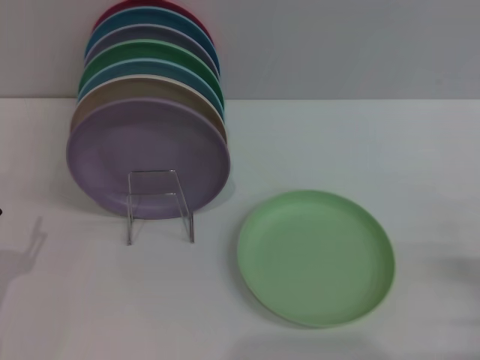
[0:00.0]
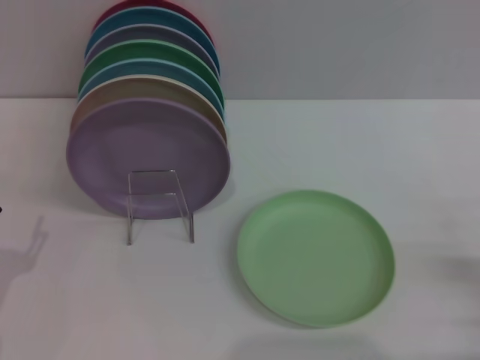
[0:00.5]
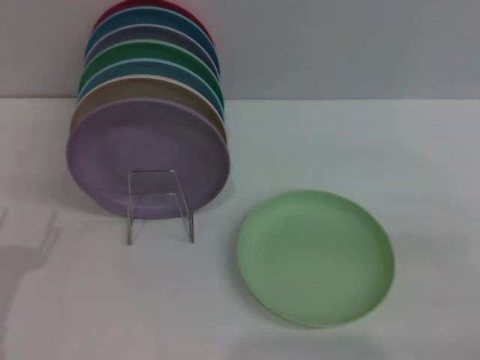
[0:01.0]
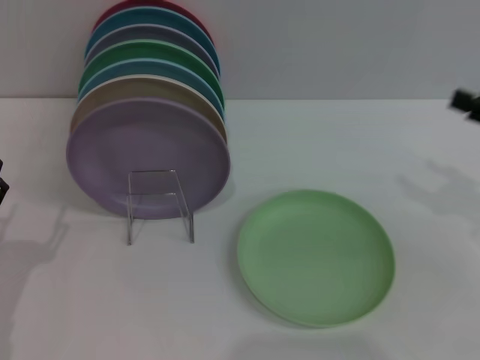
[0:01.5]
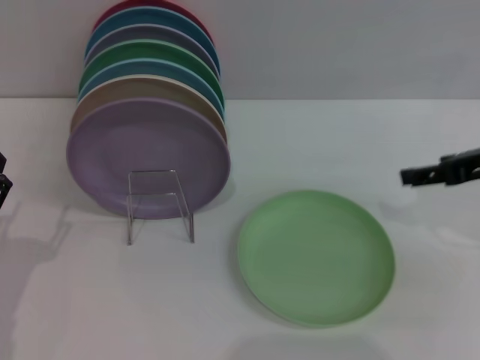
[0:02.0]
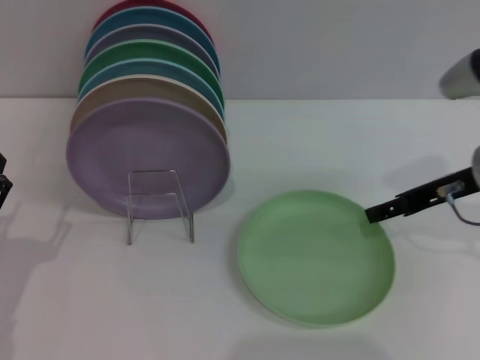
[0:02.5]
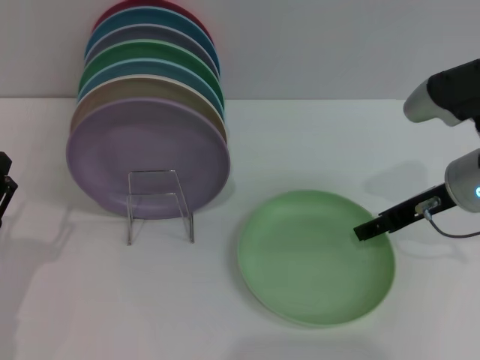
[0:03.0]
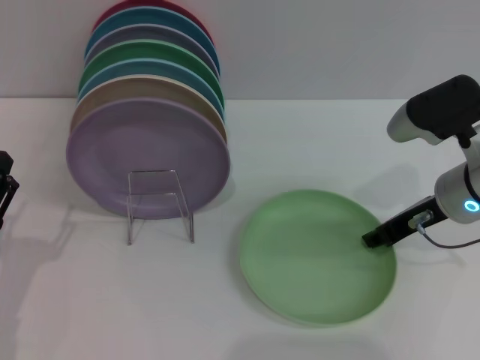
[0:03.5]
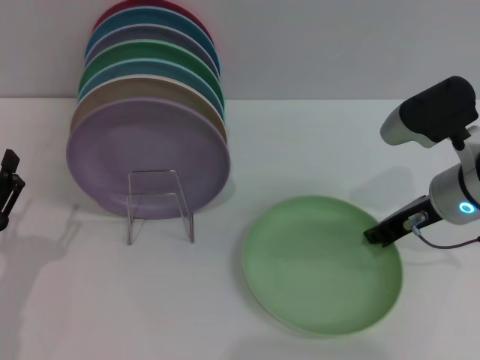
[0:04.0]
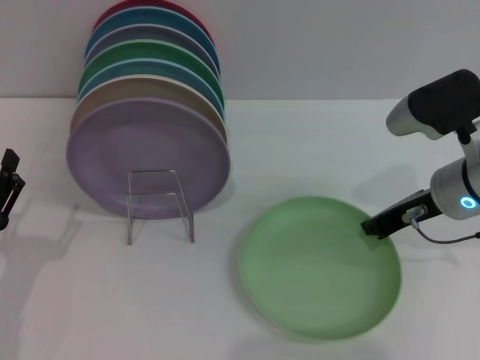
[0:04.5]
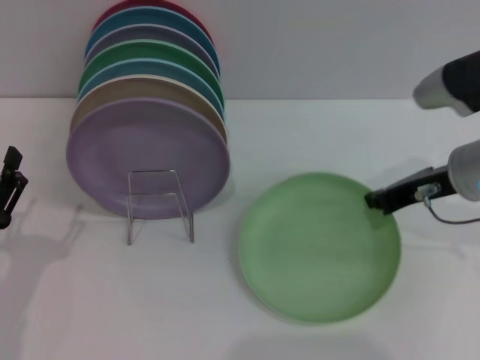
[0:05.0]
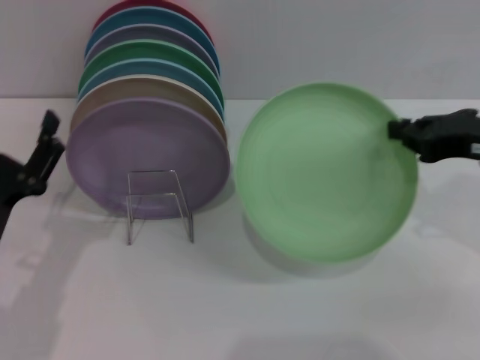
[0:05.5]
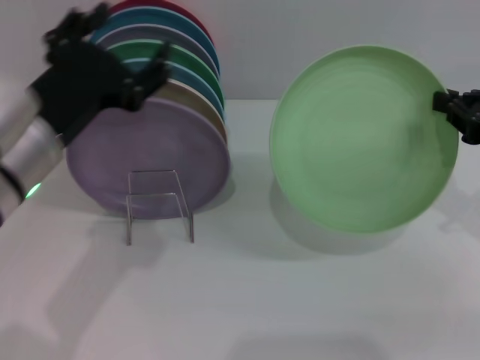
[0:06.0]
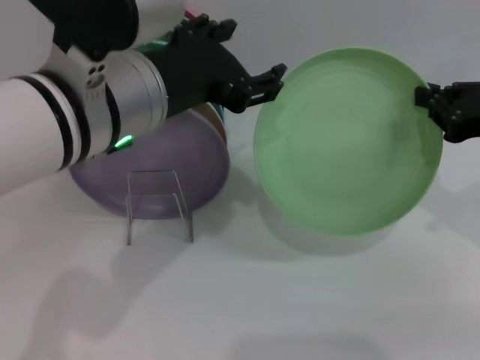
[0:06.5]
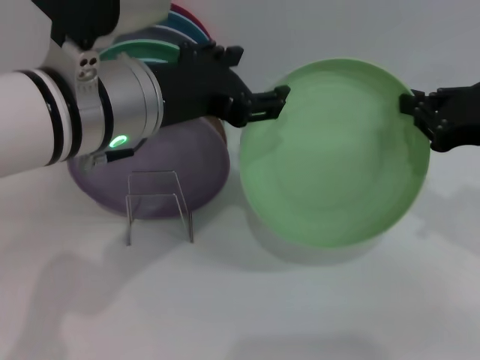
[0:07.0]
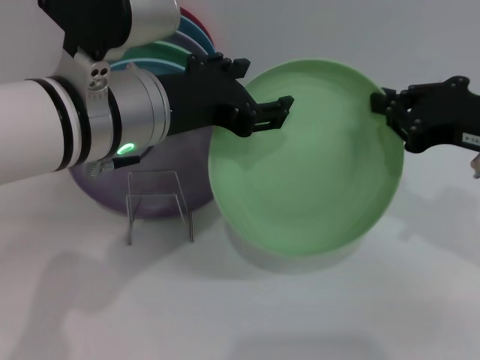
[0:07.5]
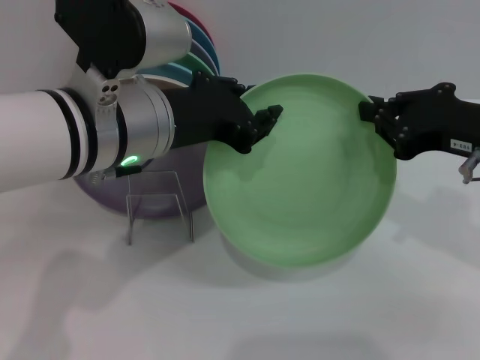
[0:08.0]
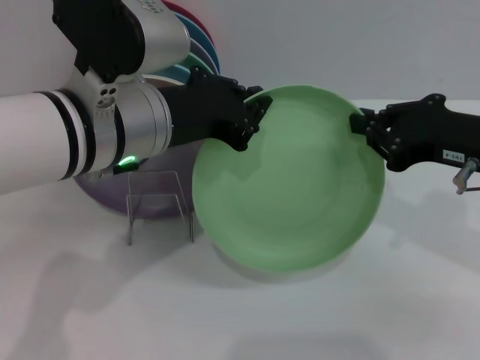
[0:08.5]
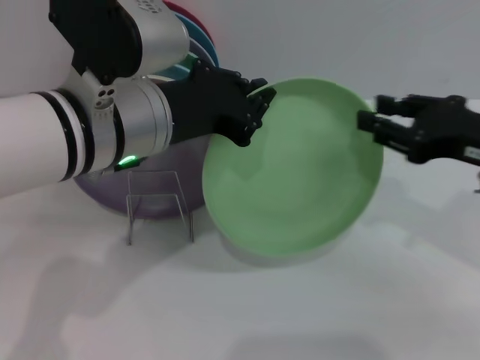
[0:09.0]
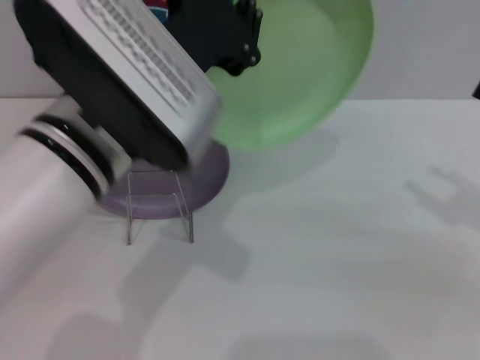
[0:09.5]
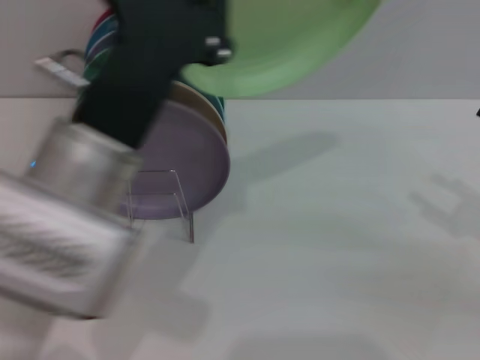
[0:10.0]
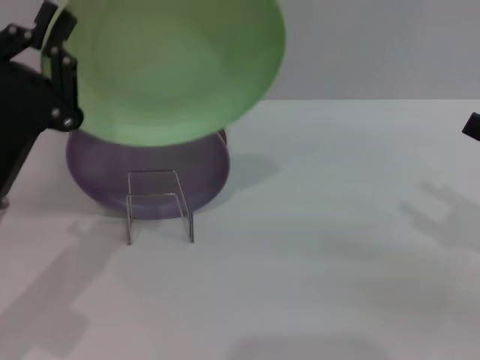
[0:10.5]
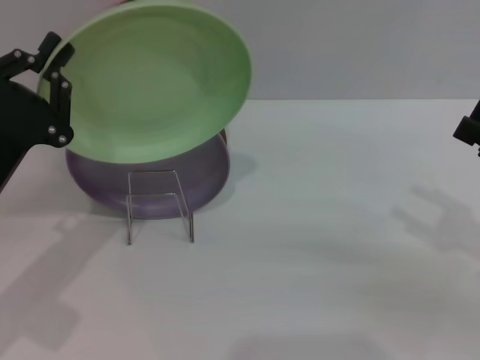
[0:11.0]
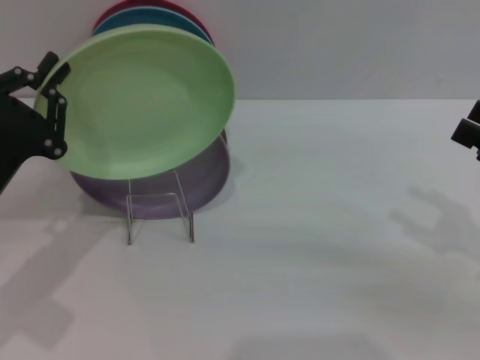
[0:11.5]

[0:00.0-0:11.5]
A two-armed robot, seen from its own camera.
Task of the whole recording: Grip the plate with one hand, pass it to the other, then set it on the shelf.
Step, 0:00.0 to 0:05.0: Pick up the plate with the right gripper.
Step, 0:05.5 to 0:09.5: Pass the plate from the right gripper to the left gripper.
0:00.0 to 0:02.0: The right gripper is displaced upward, forward and to the left by approximately 25 cm.
0:02.0 to 0:04.0: The right gripper shifts some 10 cm to the left and downward, and closes.
0:04.0 to 0:06.0: The right gripper shifts roughly 10 cm to the right, upward and backward, while the left gripper goes about 20 cm upward and to the right.
0:06.0 to 0:07.5: The left gripper shifts roughly 5 cm to the right.
0:07.5 to 0:09.5: The right gripper heads to the right, covering about 10 cm, and opens up. Meanwhile the left gripper closes its fingers.
0:09.5 to 0:11.5: The left gripper moves to the left and downward, some 20 cm.

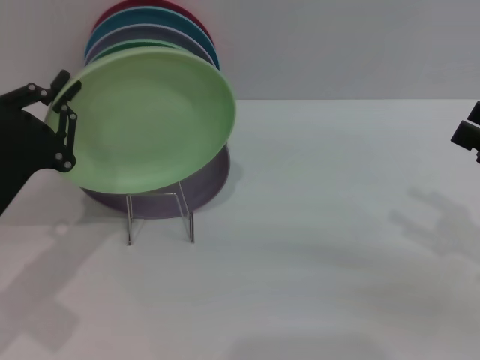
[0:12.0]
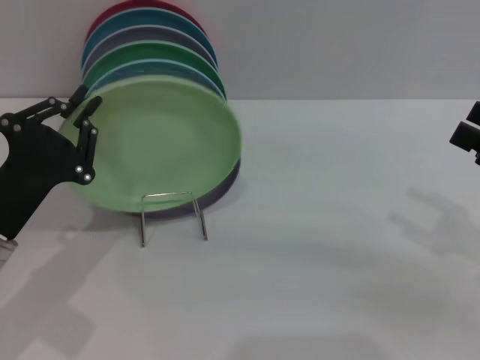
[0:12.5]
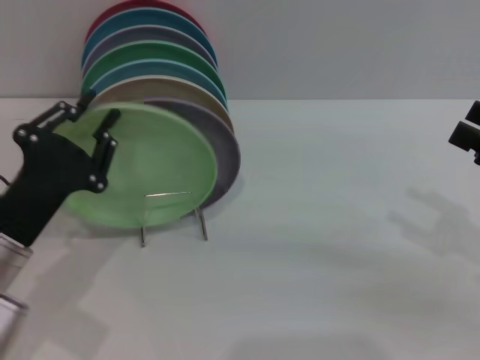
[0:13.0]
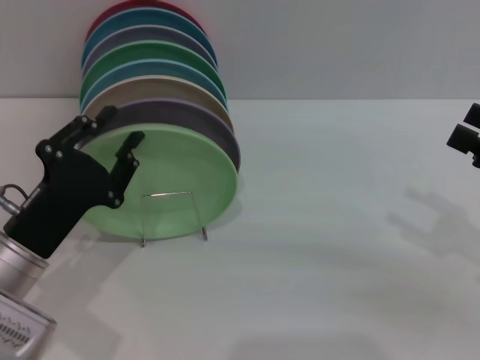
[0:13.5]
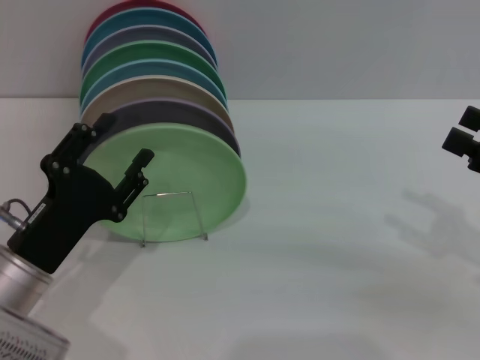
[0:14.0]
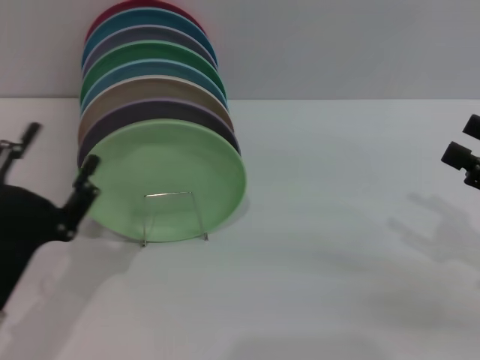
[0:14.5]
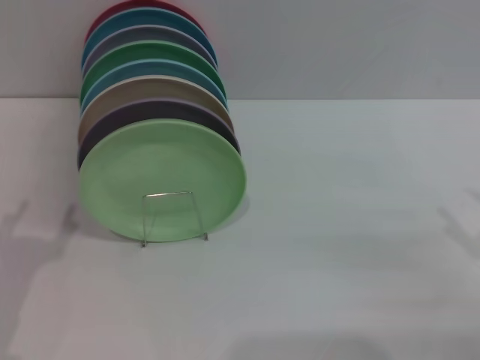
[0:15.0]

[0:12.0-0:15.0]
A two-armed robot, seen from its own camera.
Task of the whole recording: Grip the plate with one hand, pass it to the other, then set it on the shelf.
0:13.5 to 0:15.0: The left gripper travels backward and to the left by roughly 10 cm, and opens, while the right gripper heads downward, covering roughly 5 cm.
